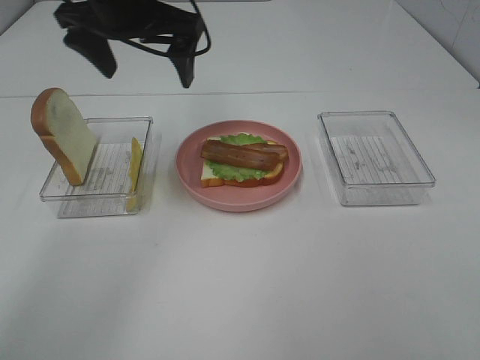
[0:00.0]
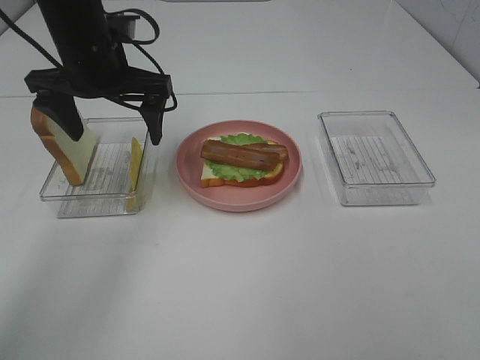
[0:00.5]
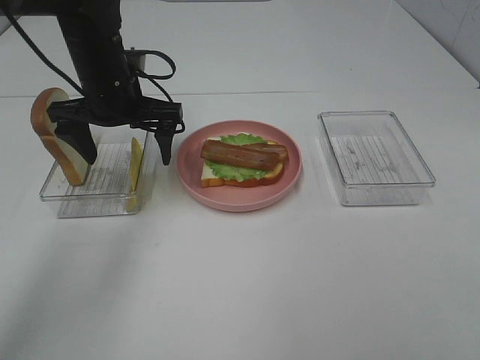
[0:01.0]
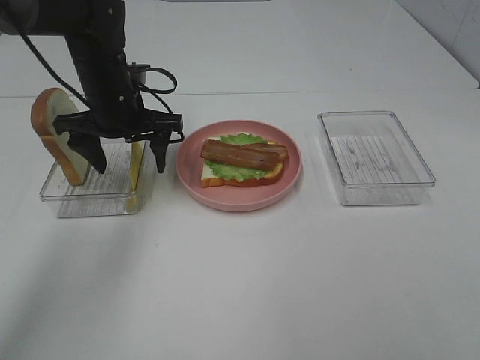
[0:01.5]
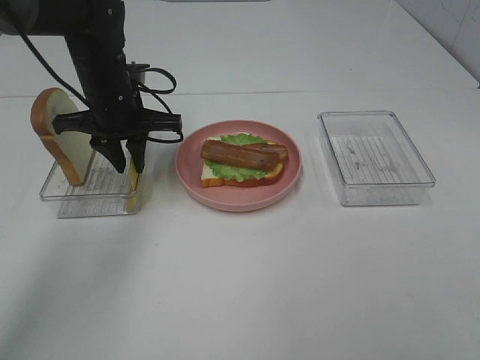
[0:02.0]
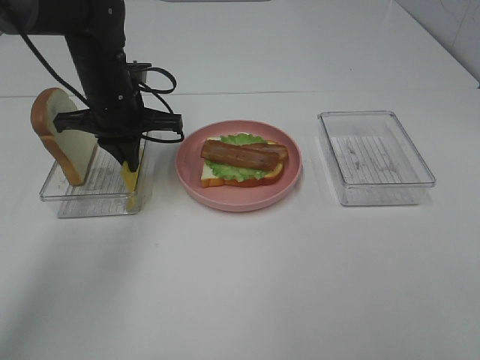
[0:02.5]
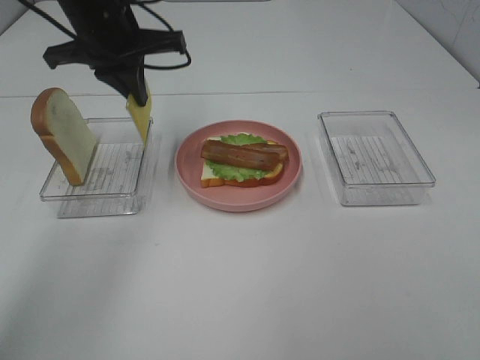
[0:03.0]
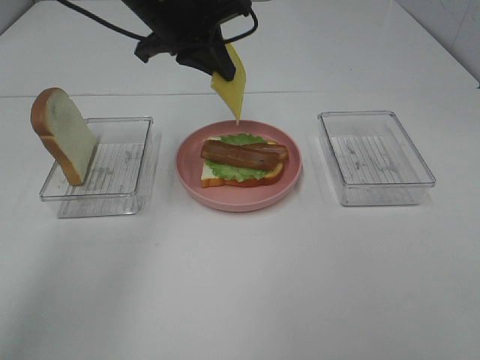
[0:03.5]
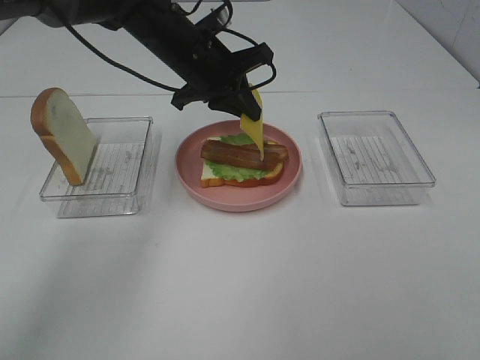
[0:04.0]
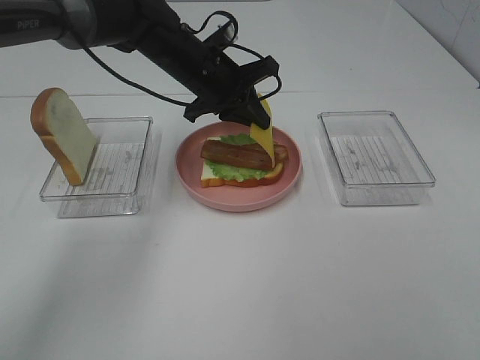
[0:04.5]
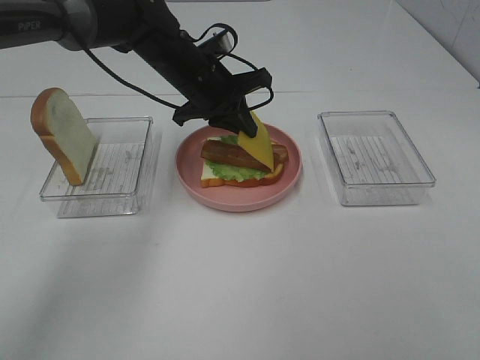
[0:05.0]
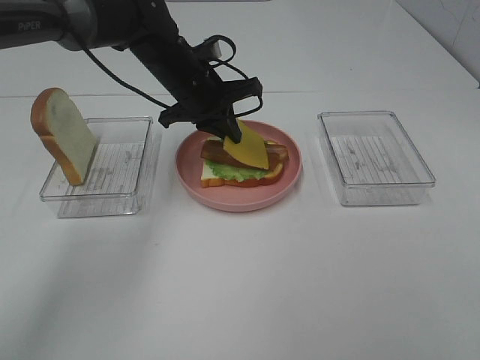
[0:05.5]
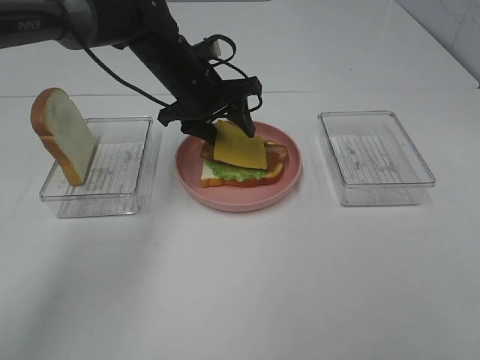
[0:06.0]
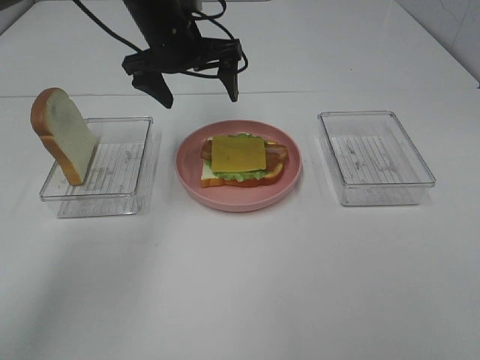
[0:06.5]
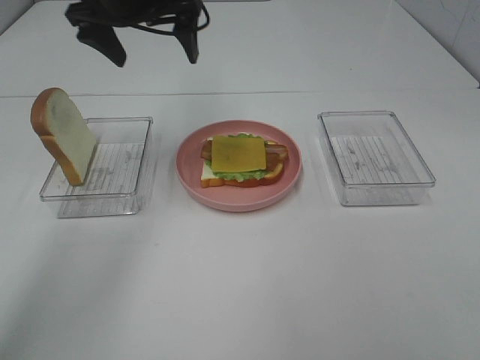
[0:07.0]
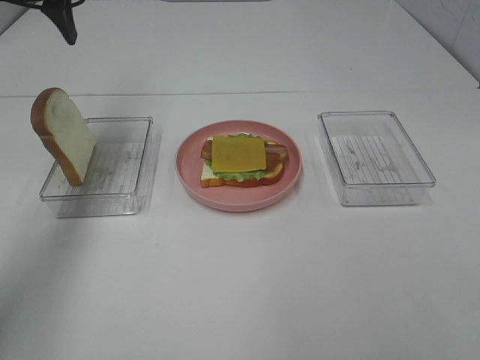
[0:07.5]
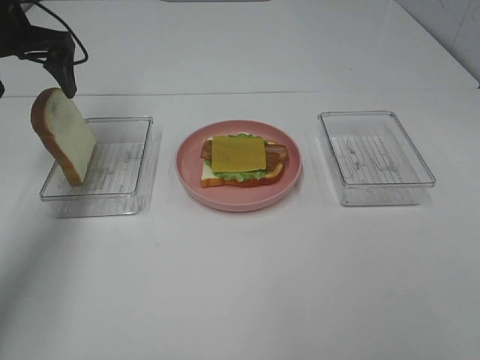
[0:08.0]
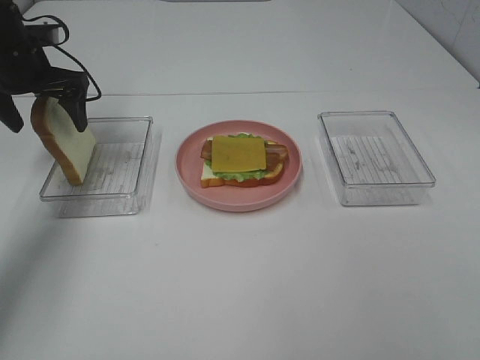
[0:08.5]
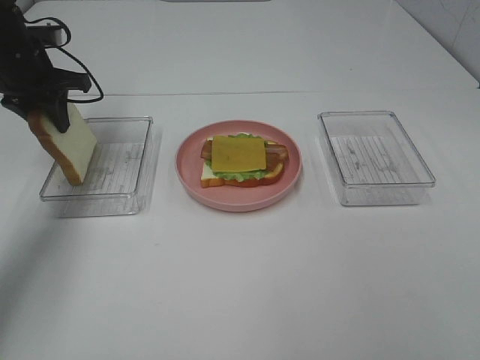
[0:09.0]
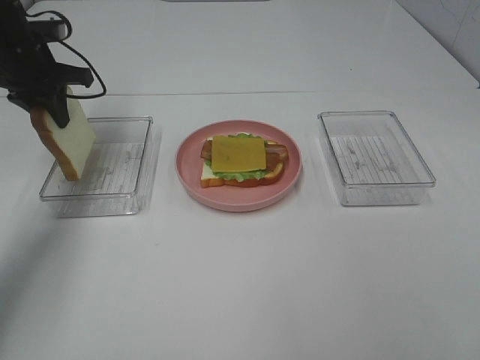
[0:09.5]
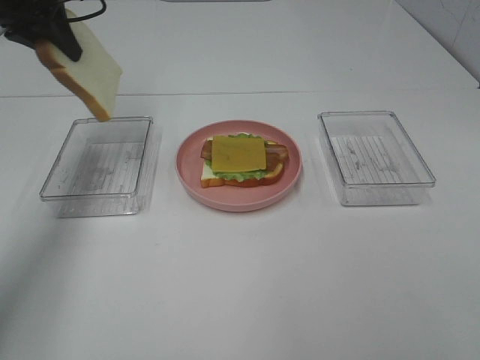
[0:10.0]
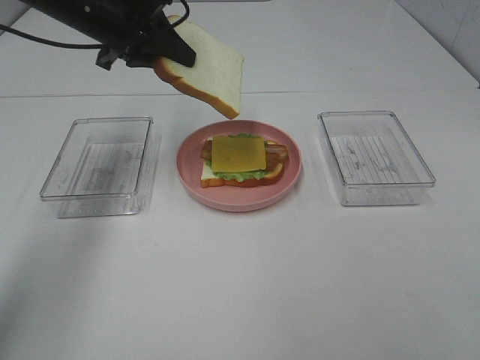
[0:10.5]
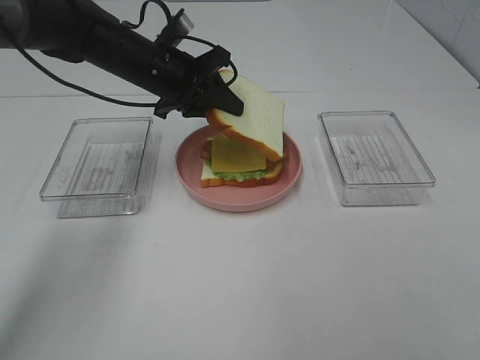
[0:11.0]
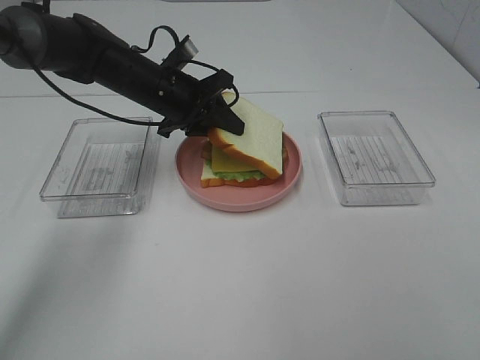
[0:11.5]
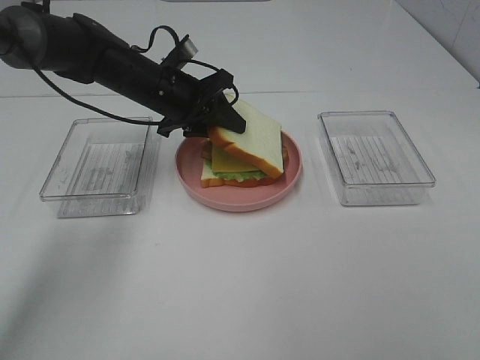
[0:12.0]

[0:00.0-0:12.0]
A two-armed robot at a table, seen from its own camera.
Task of the whole recording: Make sandwiches.
Step, 0:00.0 to 0:02.0: Left hand:grab the cheese slice.
Step, 0:02.5 to 0:06.0: Left hand:place the cheese slice on top of the bacon.
Step, 0:06.5 to 0:09.0: Left hand:grab the bread slice.
0:00.0 to 0:02.0: The left gripper shifts roughly 15 cm downward, and closes.
0:02.0 to 0:04.0: The left gripper moves to the right, about 10 cm, and goes upward and returns, about 10 cm each way.
0:04.0 to 0:06.0: The left gripper opens up.
0:06.0 to 0:08.0: The left gripper shifts about 20 cm to the left, and opens.
0:08.0 to 0:10.0: The left gripper ends up roughly 5 cm from where it was, and closes its fingers.
0:10.0 to 0:12.0: The left gripper is displaced downward and to the right by approximately 20 cm.

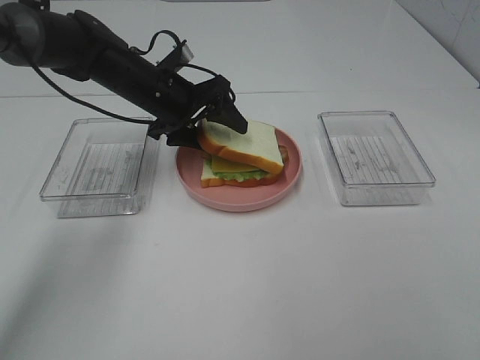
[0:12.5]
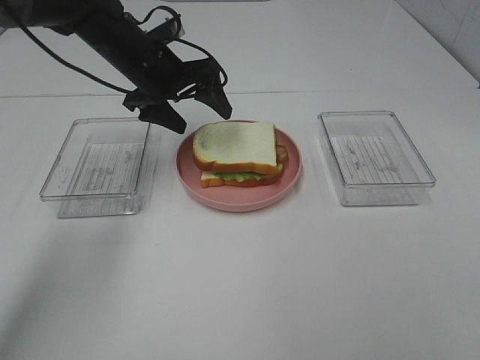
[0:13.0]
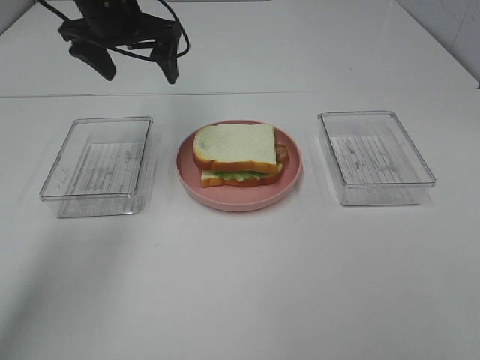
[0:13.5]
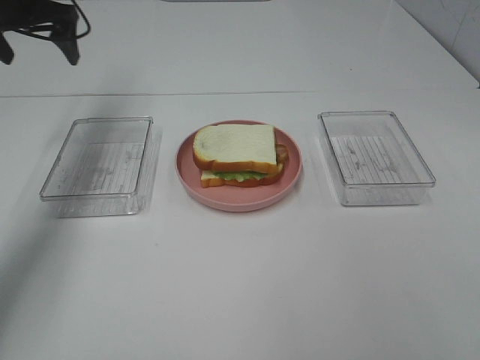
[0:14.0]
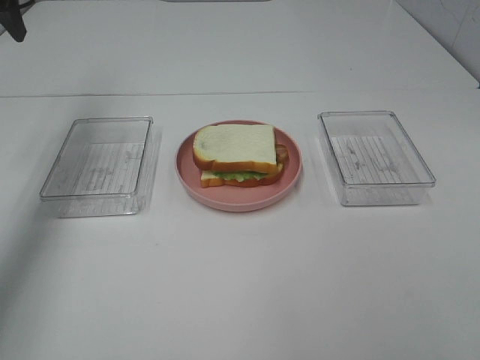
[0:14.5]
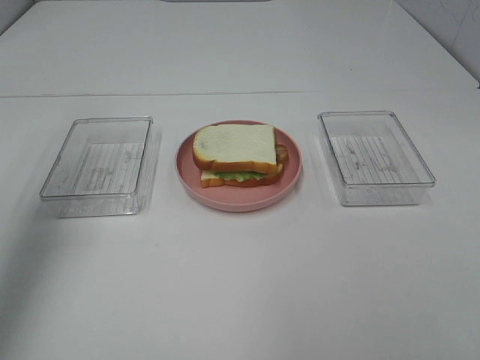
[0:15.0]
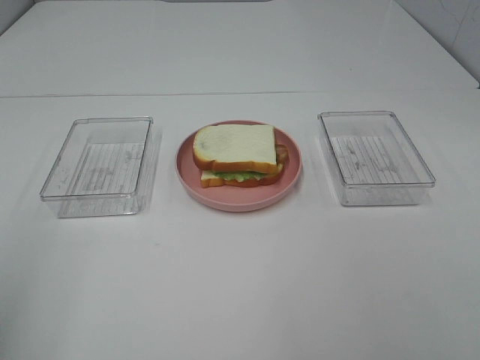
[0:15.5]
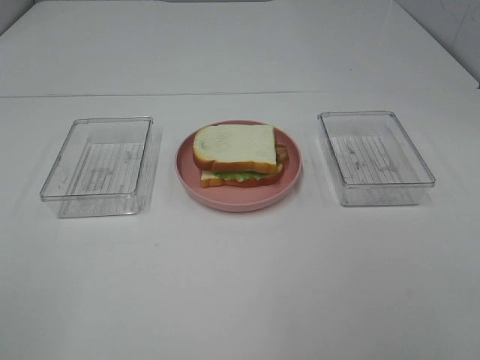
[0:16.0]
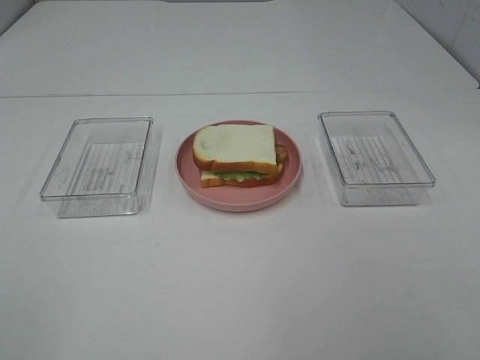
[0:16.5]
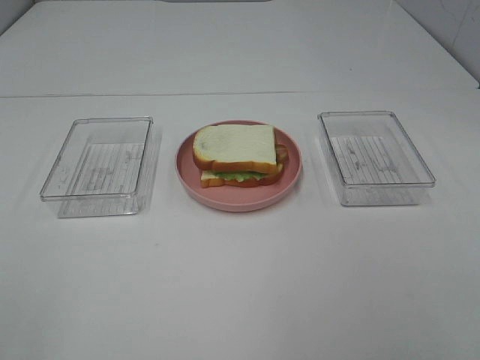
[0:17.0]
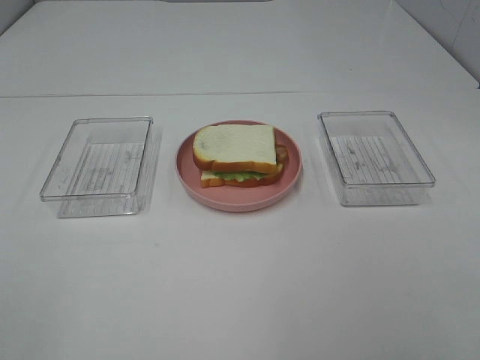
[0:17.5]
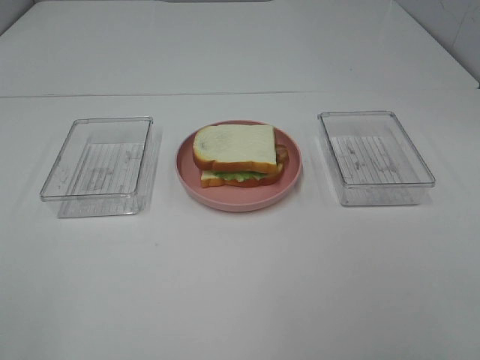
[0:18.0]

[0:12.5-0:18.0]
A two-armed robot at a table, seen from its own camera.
Task of the whole recording: Make sandwiches.
0:12.5 to 0:14.5: The left gripper heads to the left and upward, covering some 30 cm.
0:14.5 to 0:16.0: The left gripper goes approximately 40 cm backward.
0:16.0 to 0:18.0: The two grippers keep their place.

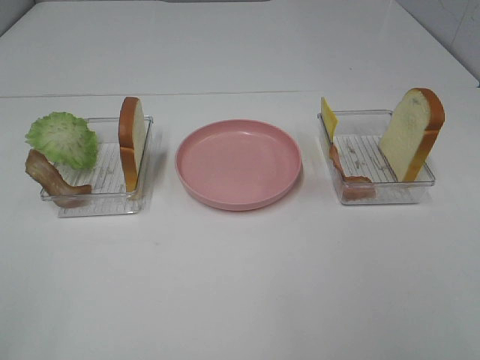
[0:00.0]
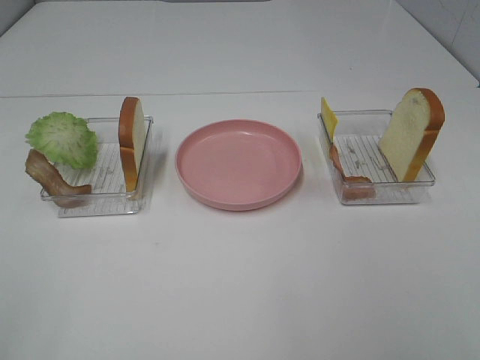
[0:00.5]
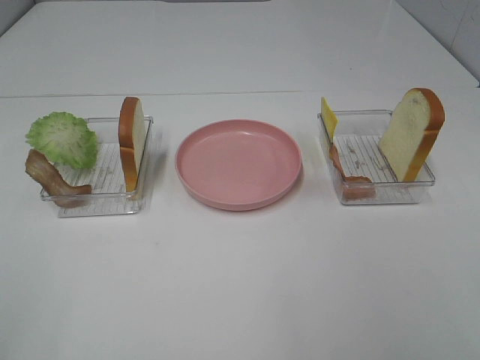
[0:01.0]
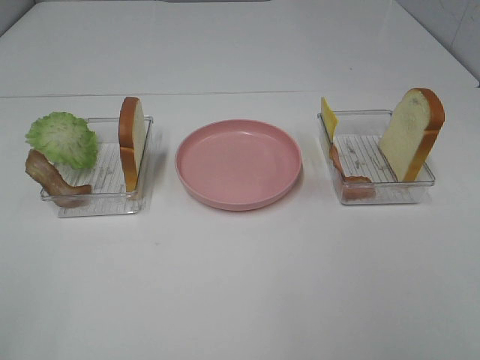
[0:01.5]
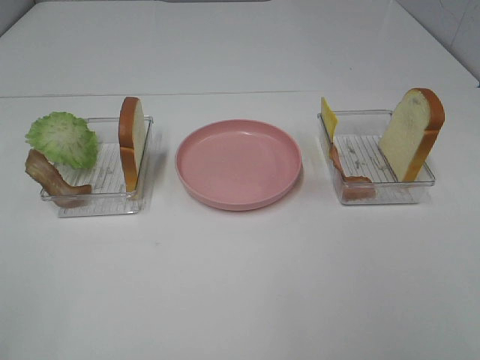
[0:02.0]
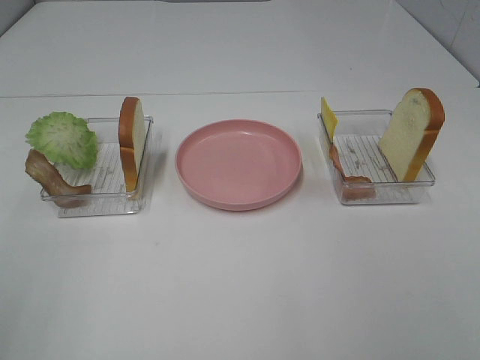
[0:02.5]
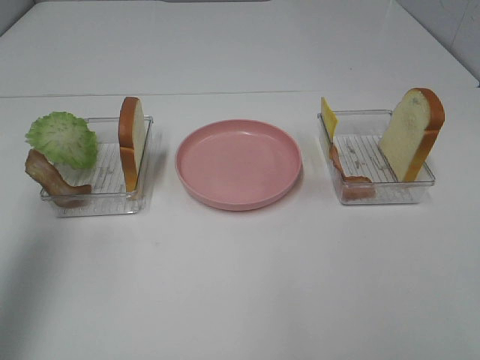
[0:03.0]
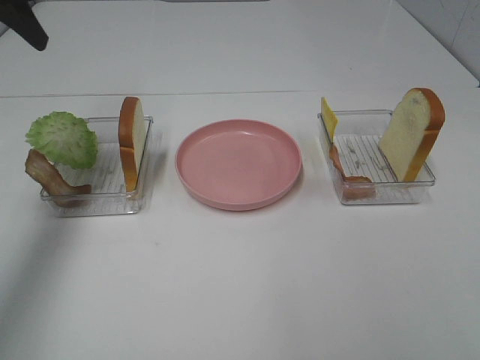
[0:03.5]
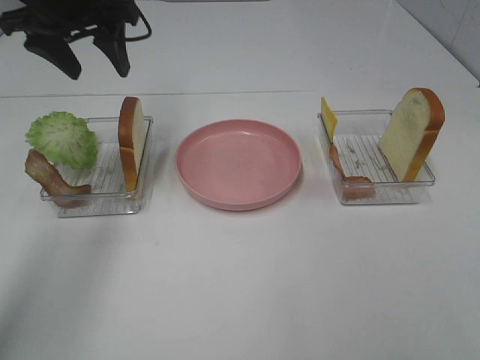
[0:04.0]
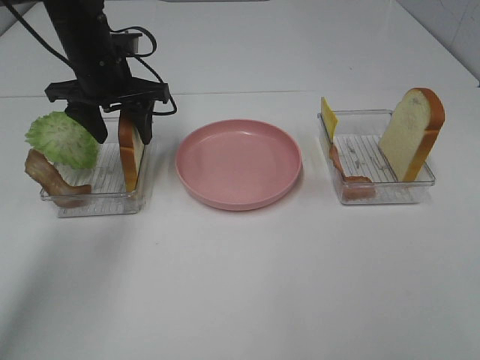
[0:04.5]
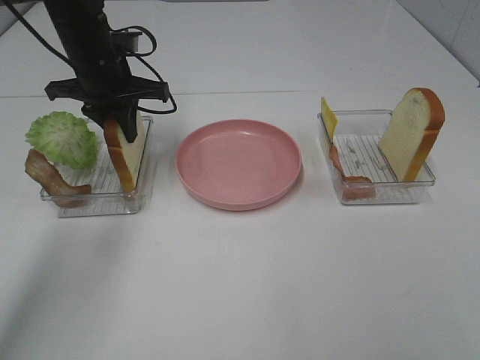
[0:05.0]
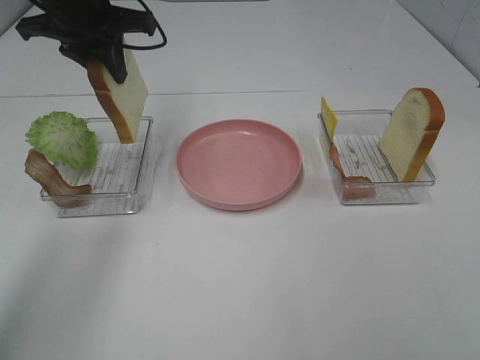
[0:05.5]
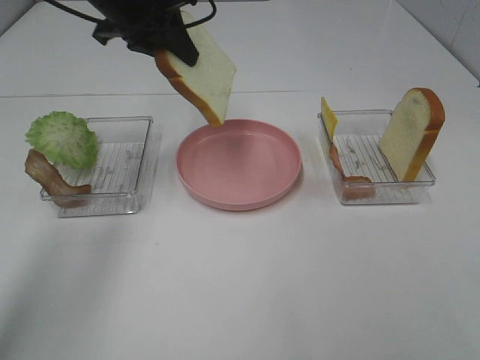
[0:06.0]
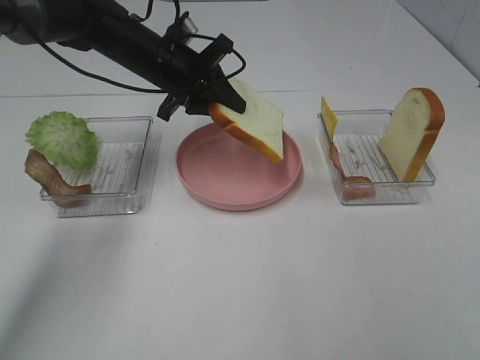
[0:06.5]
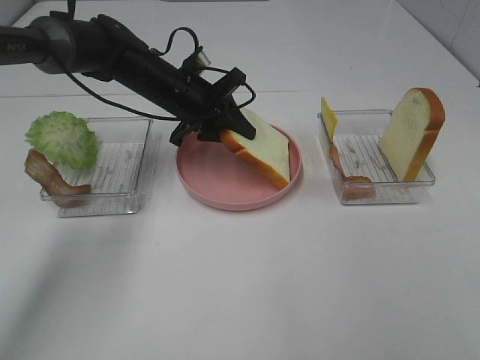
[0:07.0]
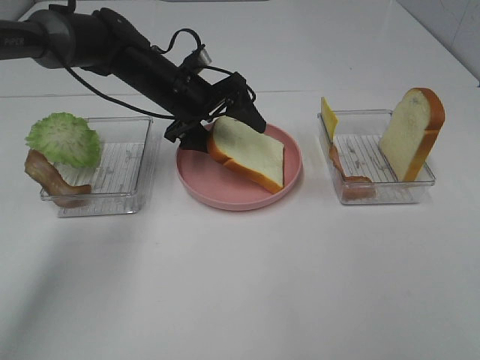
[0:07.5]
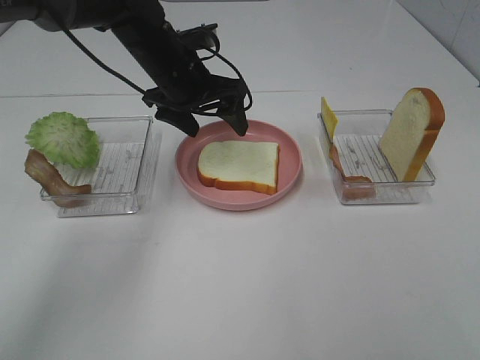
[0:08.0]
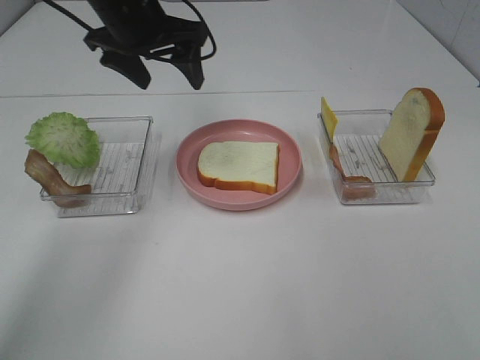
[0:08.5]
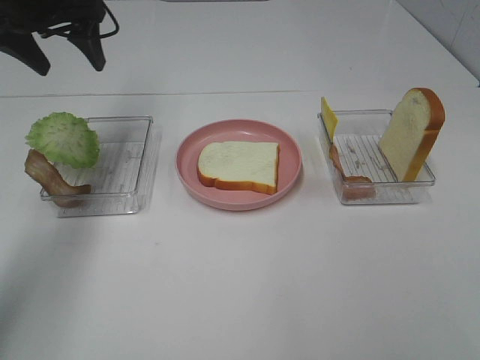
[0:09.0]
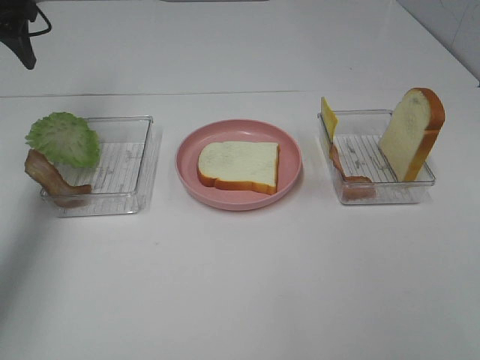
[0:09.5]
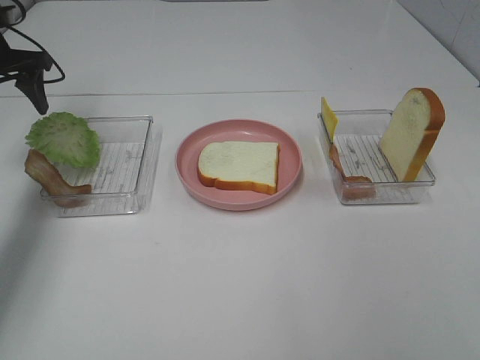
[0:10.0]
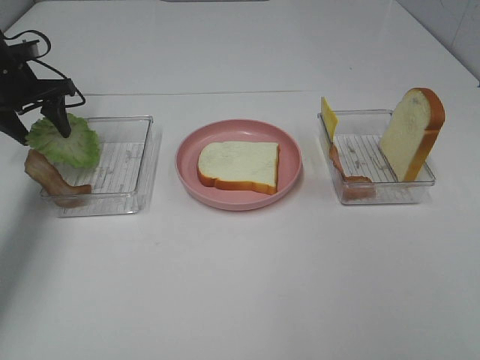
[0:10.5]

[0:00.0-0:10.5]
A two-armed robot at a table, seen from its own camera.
Task of the whole recording: Make sandwiches.
Step, 0:00.0 to 0:05.0: Left hand:grab the bread slice.
Step, 0:05.5 to 0:08.0: Left hand:place the bread slice on the plate.
0:00.0 to 0:02.0: Neither gripper changes place.
0:02.0 to 0:04.0: The left gripper moves forward, approximately 40 cm.
0:04.0 to 0:06.5: The left gripper goes up and down, roughly 10 cm each way, reversing 2 times, and closes its fingers.
0:06.5 to 0:08.5: The left gripper heads upward, covering roughly 10 cm, and opens its fingers.
0:08.5 to 0:10.5: The left gripper travels to the left and downward by about 25 cm.
